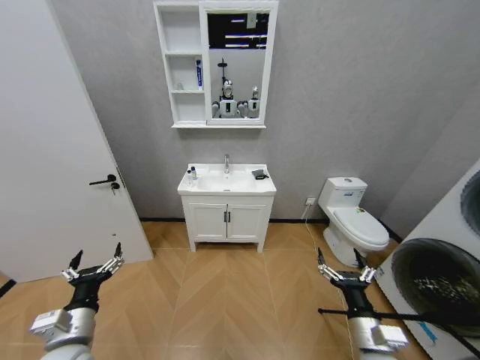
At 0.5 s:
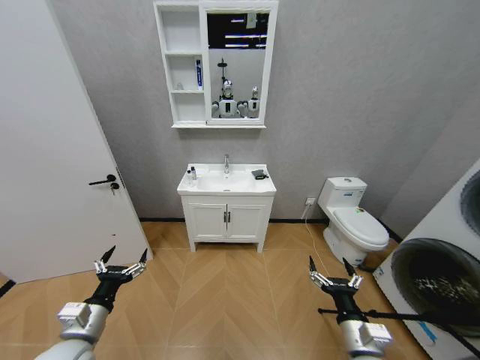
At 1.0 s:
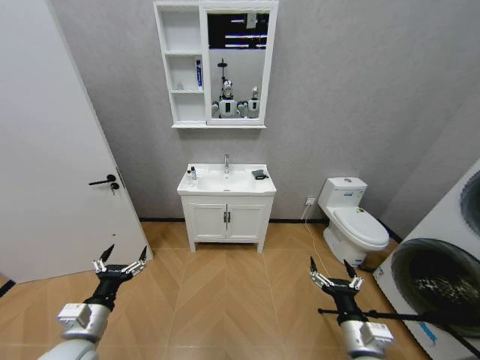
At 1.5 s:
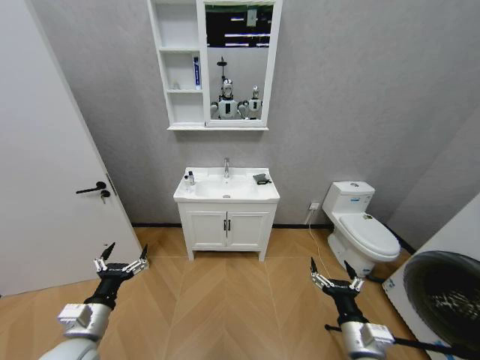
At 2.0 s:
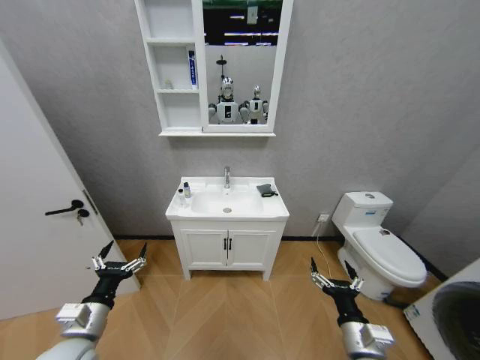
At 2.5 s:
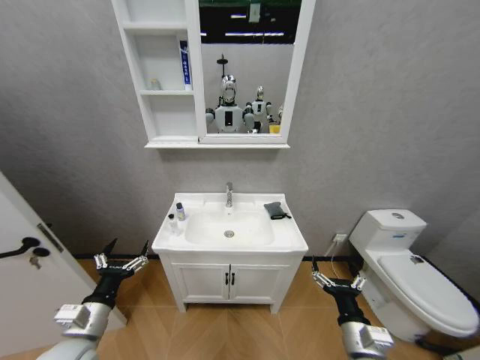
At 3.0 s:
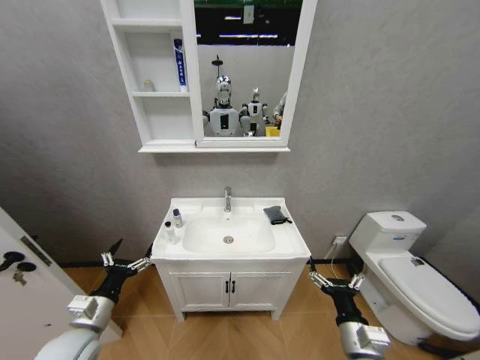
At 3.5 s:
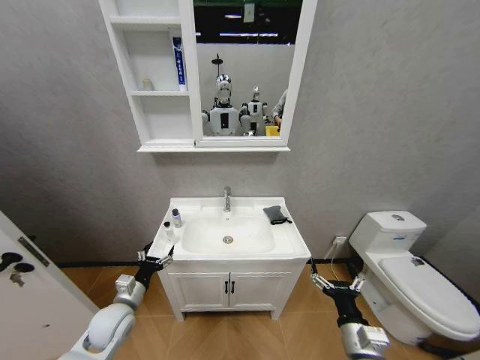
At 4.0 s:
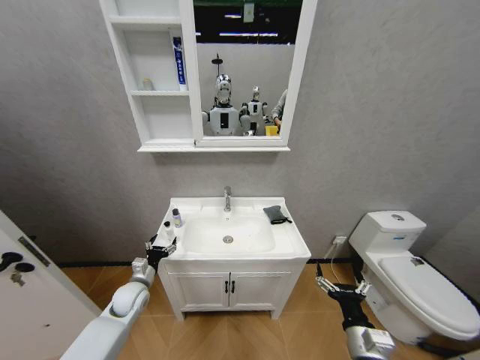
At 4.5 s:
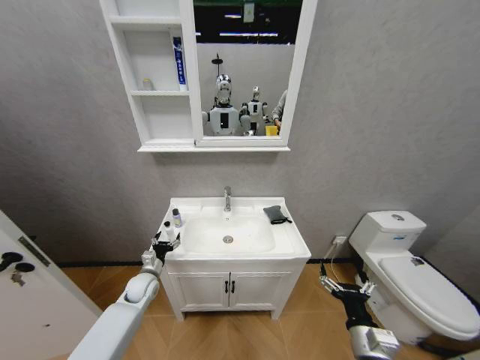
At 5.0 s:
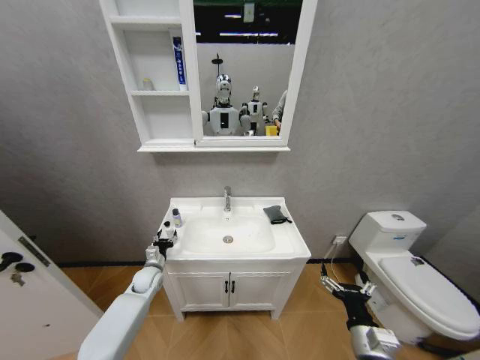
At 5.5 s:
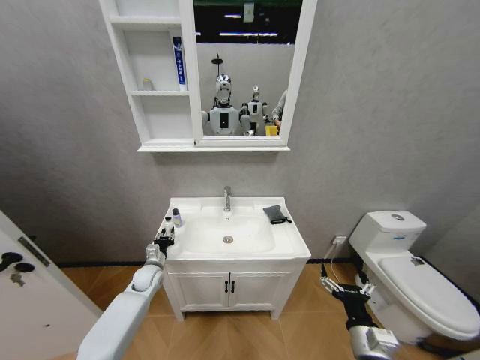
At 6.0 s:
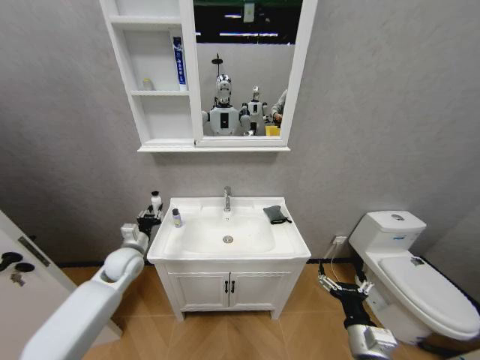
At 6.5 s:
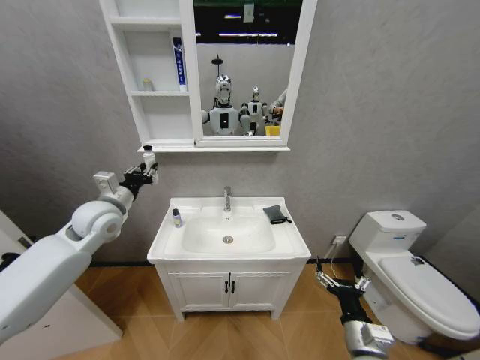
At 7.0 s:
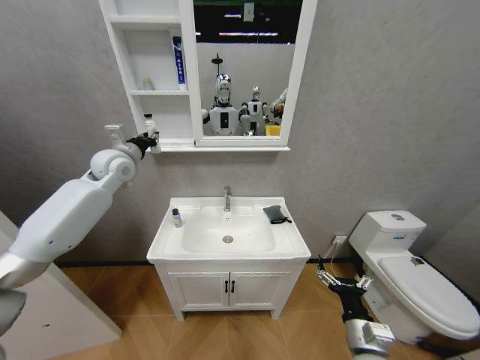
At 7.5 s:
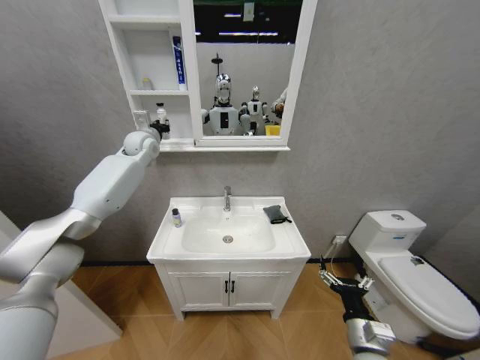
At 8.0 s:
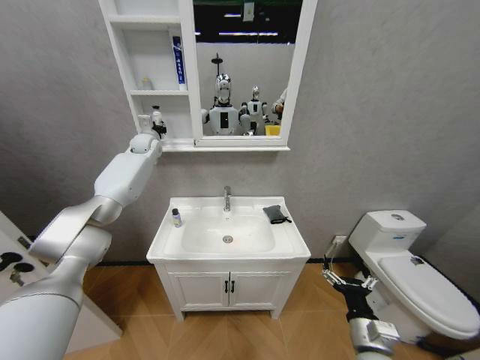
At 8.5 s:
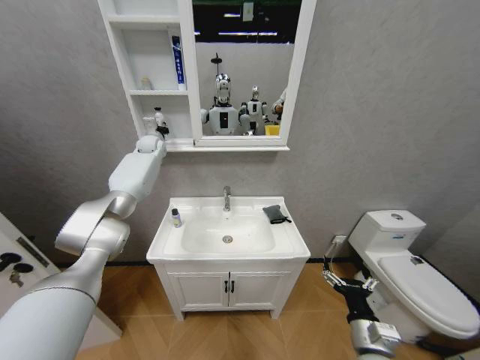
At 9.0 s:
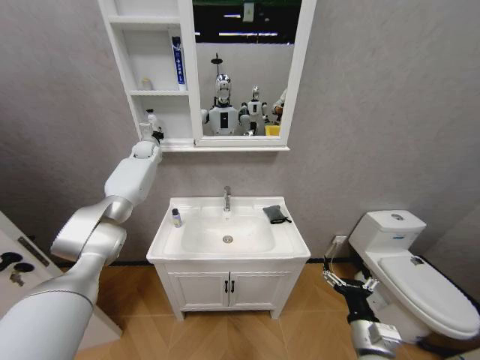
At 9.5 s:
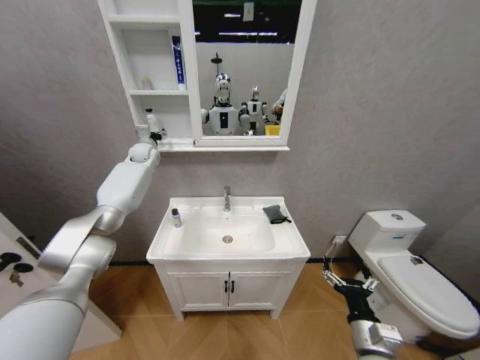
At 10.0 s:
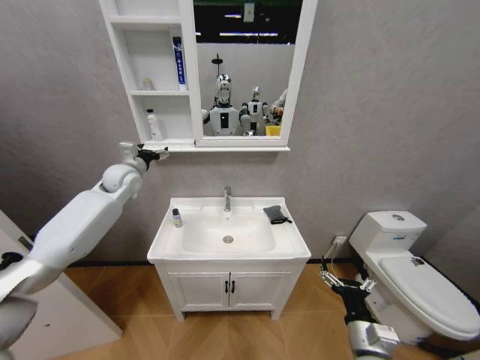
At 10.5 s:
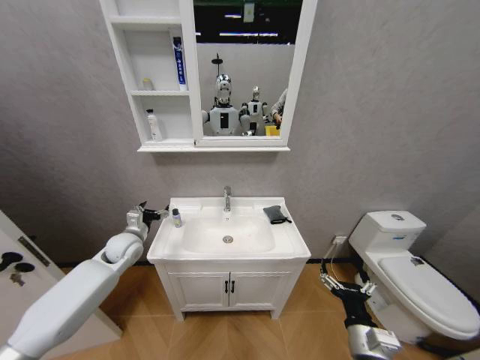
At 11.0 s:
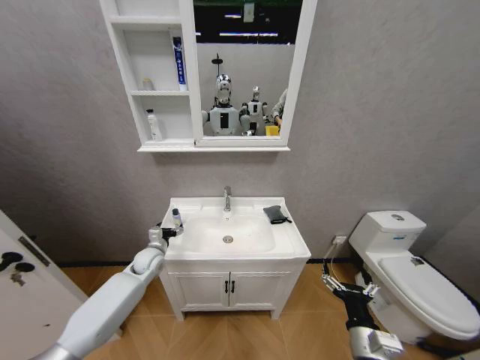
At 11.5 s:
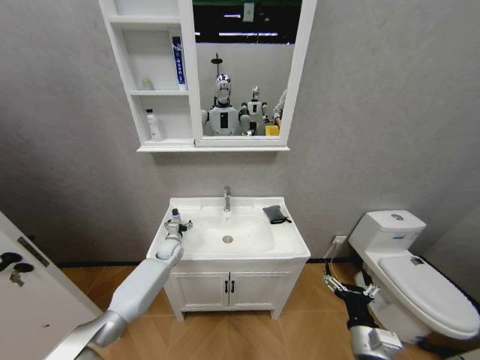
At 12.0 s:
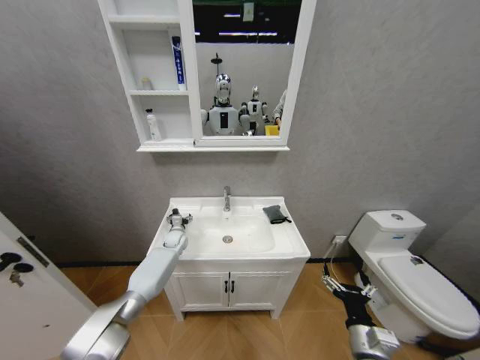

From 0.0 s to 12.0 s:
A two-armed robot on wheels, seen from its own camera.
Task of the whole recording: Move facial cleanser and shampoo from washbasin to cabinet, then wipe washbasin with towel.
From 2.0 s to 4.0 s: The left gripper heads forward and downward, covering approximately 20 cm.
From 4.0 s to 6.0 s: The left gripper is displaced upward and forward by some 10 cm, and closes its fingers.
From 6.0 s to 8.0 s: The left gripper heads forward and upward, covering roughly 40 cm.
From 8.0 s to 10.0 s: The left gripper shifts some 15 cm backward, and opens up.
From 10.0 s to 12.0 s: The left gripper heads downward, covering about 30 cm.

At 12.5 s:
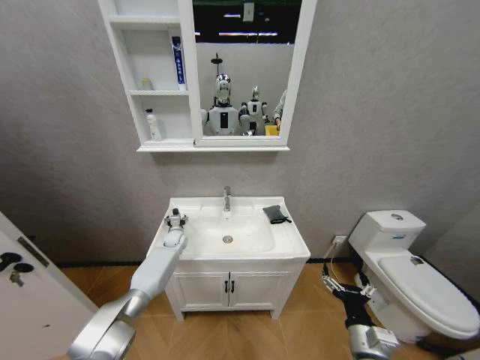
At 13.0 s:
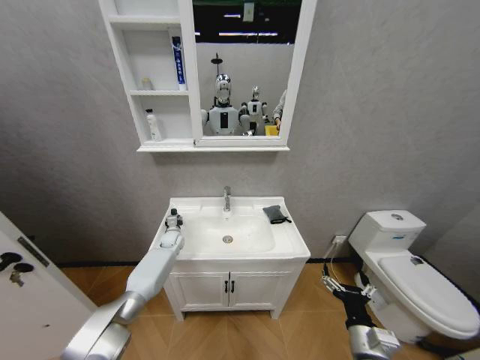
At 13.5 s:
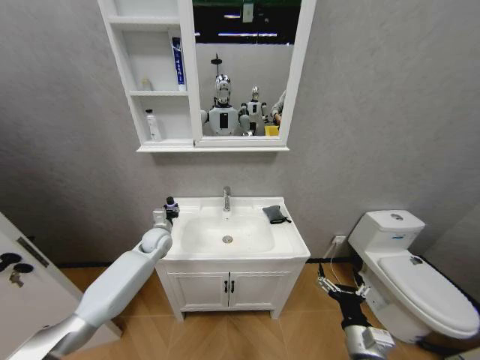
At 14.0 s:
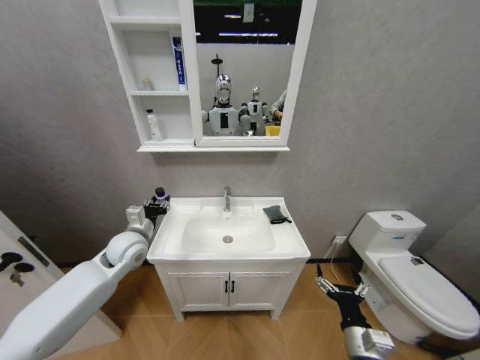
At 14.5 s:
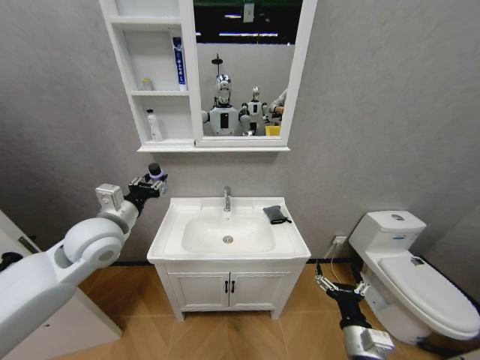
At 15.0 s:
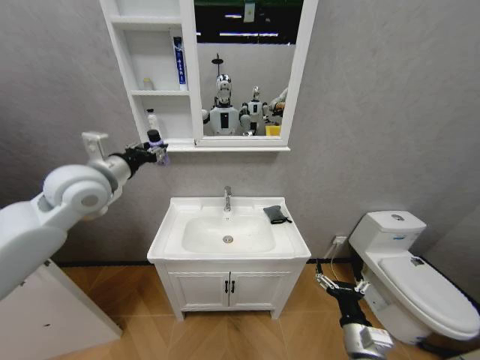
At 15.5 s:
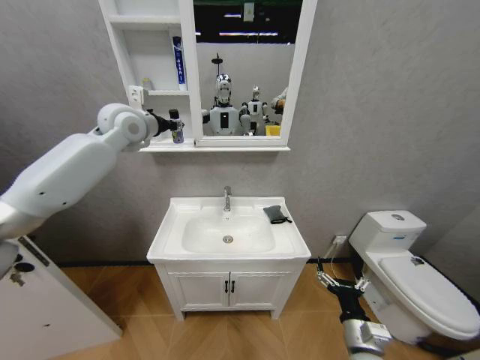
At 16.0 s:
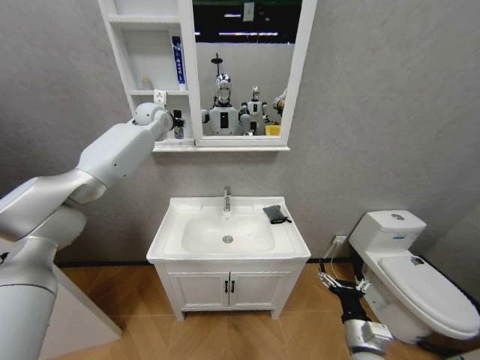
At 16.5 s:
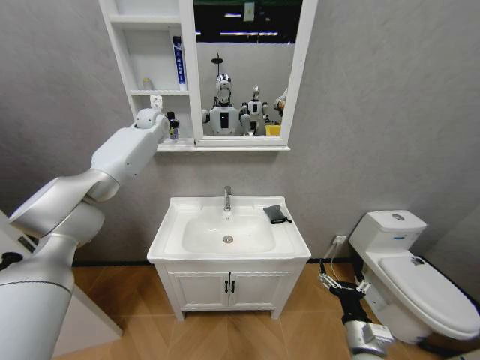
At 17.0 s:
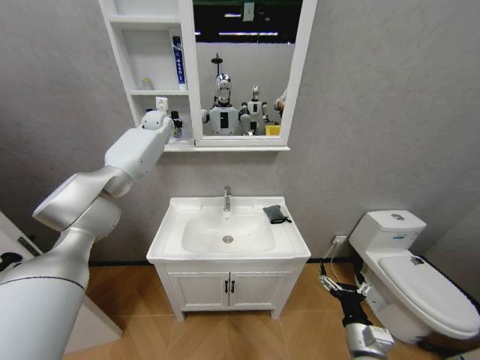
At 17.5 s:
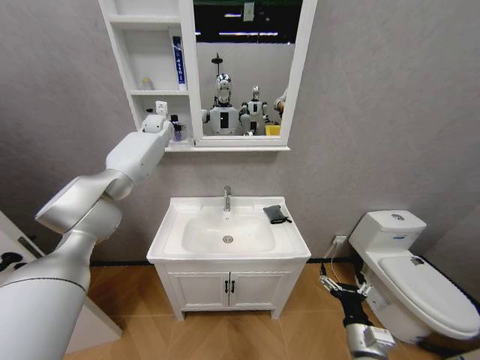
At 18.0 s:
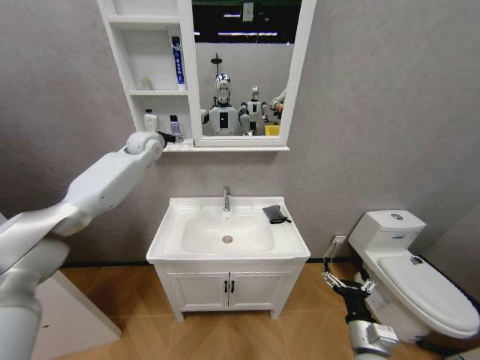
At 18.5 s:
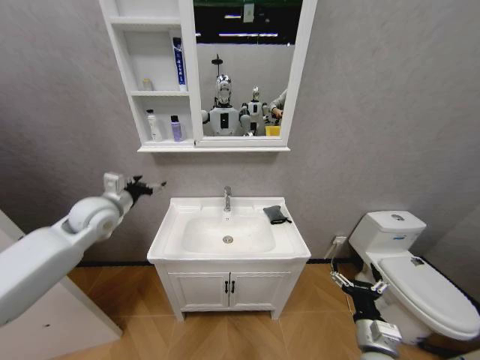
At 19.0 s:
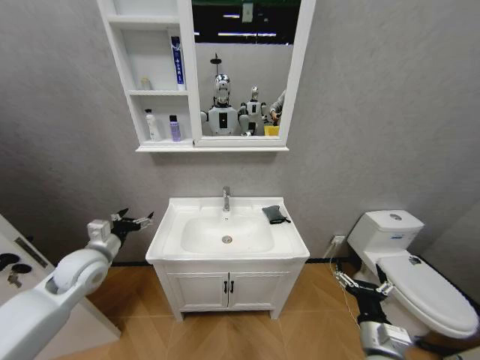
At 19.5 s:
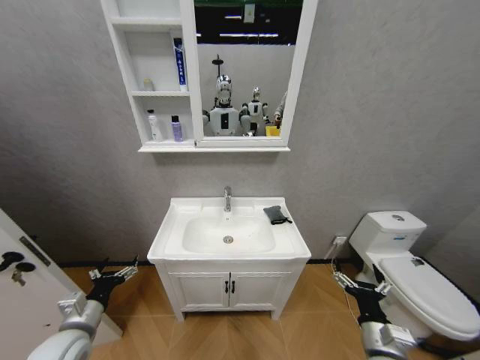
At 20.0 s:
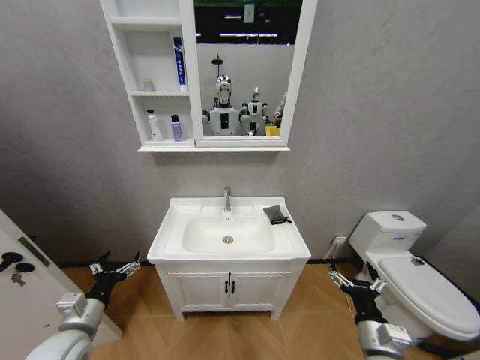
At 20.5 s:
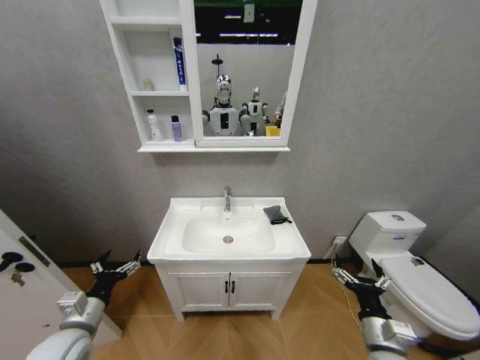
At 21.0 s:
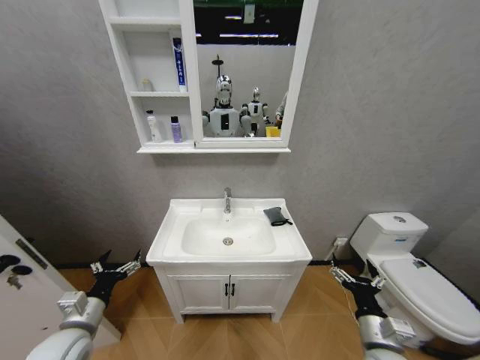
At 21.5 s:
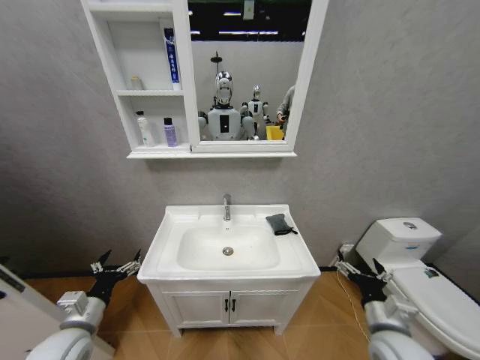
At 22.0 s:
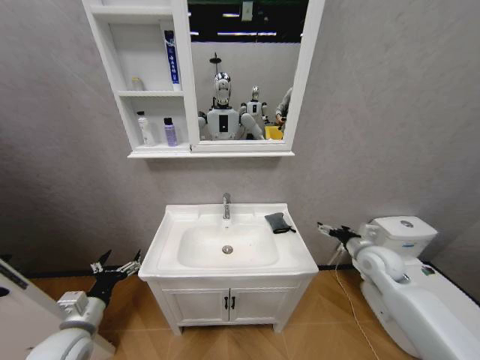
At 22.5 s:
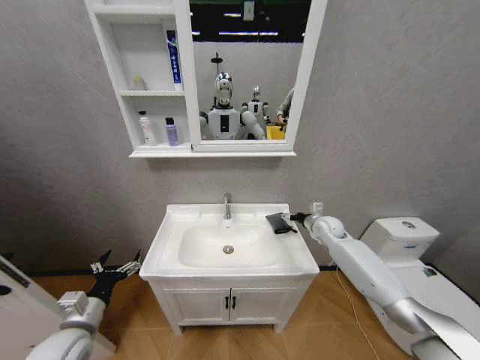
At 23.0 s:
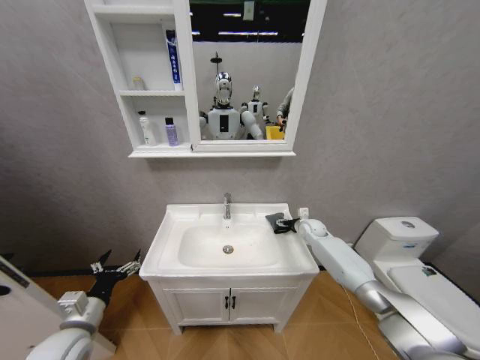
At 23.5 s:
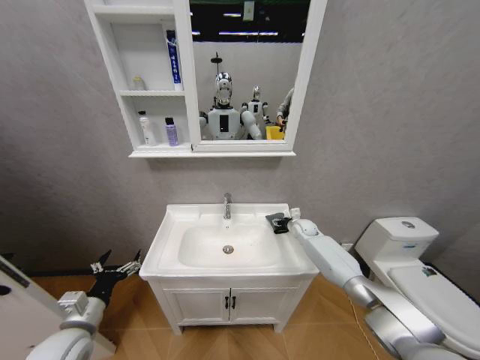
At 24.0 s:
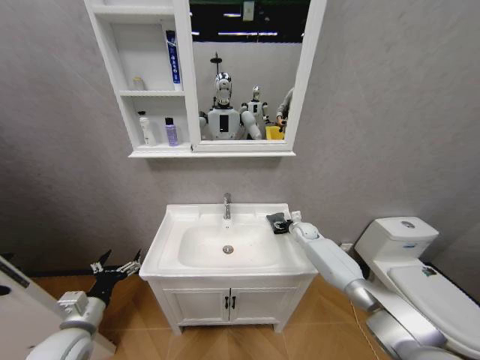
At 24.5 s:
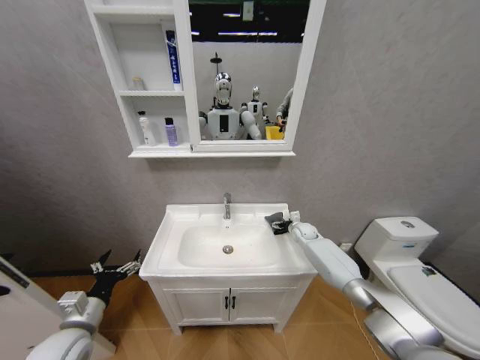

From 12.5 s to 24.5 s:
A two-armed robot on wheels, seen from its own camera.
Task of the whole recording: Move facial cleanser and shampoo from washbasin to cabinet, then wipe washbasin with towel.
From 12.5 s to 14.5 s: The left gripper travels upward and backward by roughly 40 cm, and closes its fingers.
From 14.5 s to 16.5 s: The left gripper travels forward by about 35 cm.
From 16.5 s to 18.5 s: The left gripper goes some 30 cm backward and downward, and opens its fingers.
From 18.5 s to 20.5 s: The left gripper is displaced backward and downward by approximately 30 cm.
From 20.5 s to 22.5 s: The right gripper shifts roughly 35 cm forward.
From 22.5 s to 24.5 s: The right gripper moves downward and forward, about 10 cm.

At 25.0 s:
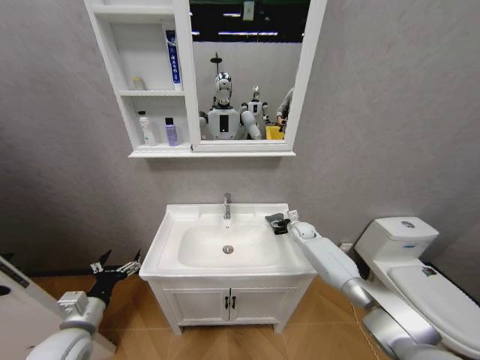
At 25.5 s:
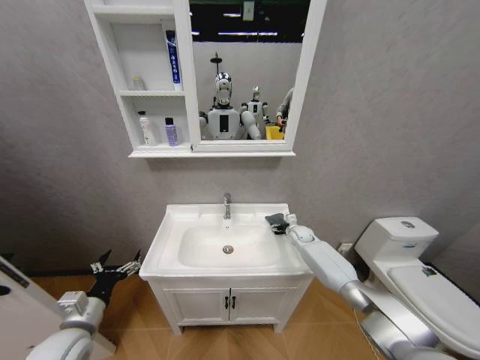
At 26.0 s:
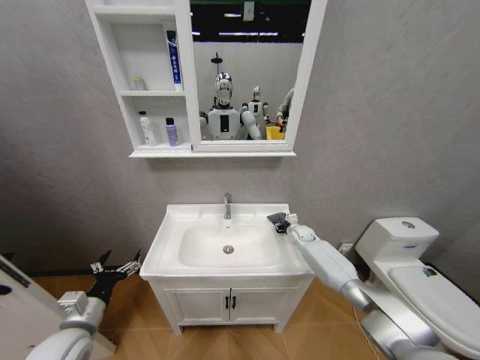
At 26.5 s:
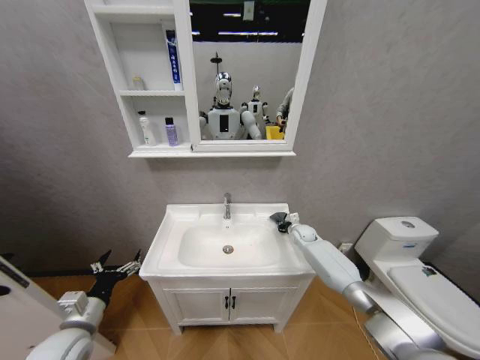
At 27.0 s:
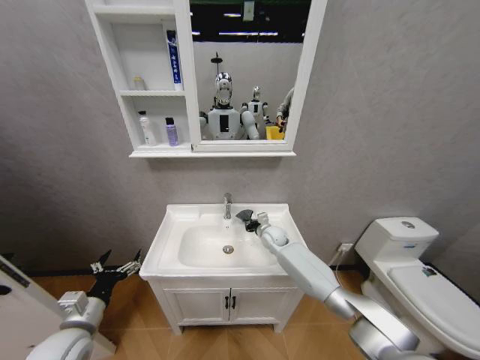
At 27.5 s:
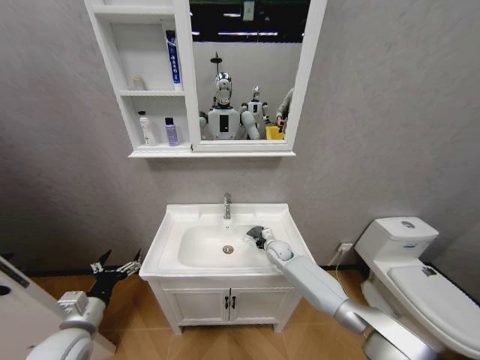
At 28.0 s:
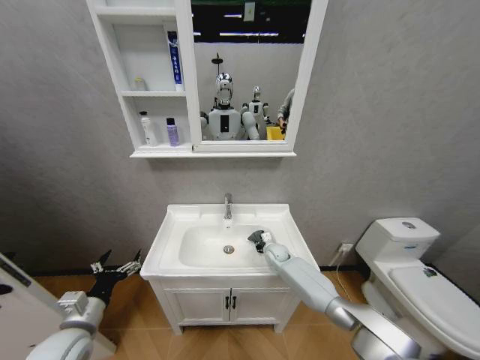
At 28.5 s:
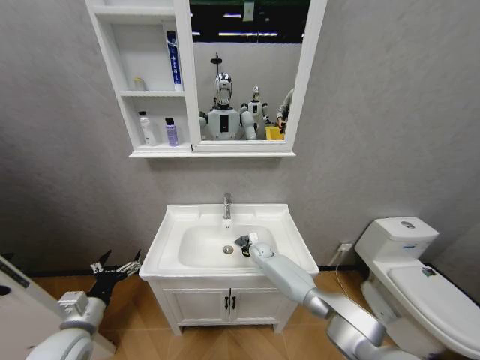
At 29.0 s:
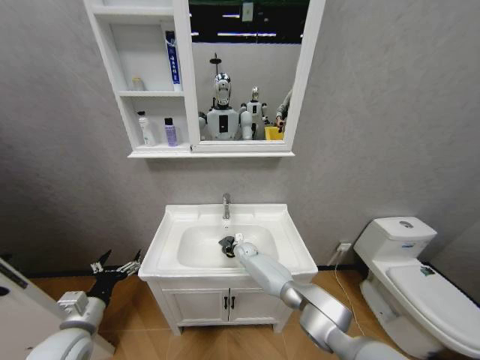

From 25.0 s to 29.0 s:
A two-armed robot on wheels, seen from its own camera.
Task of the whole recording: Move facial cleanser and shampoo from washbasin to cabinet, then wipe washbasin with towel.
From 25.0 s to 27.0 s: The right gripper heads to the left, covering some 15 cm, and closes its fingers.
From 27.0 s to 29.0 s: The right gripper is displaced downward and to the left by roughly 15 cm.
